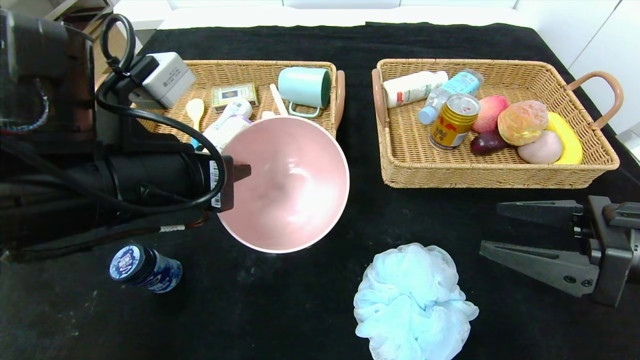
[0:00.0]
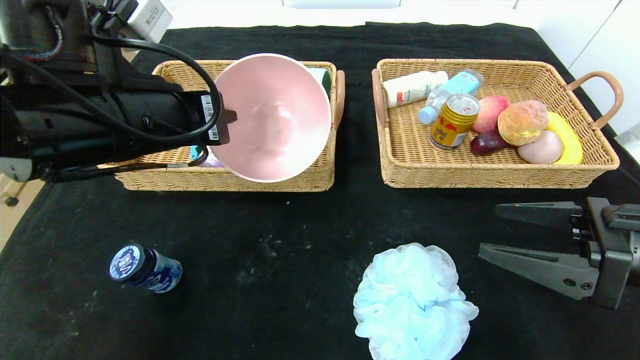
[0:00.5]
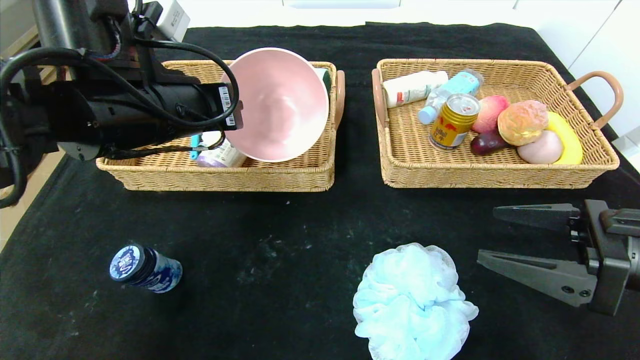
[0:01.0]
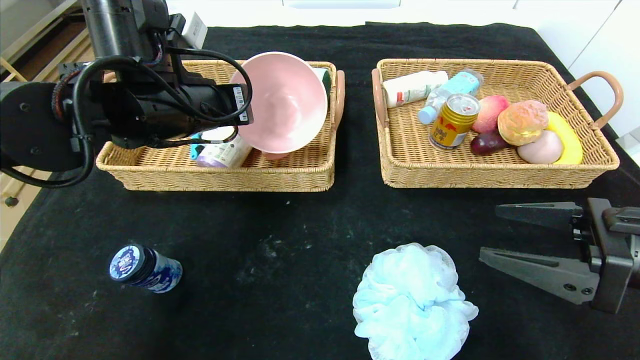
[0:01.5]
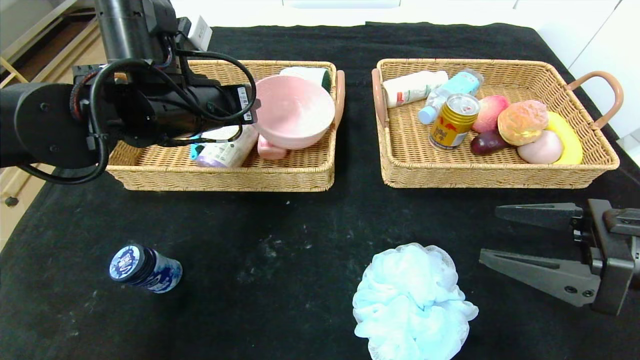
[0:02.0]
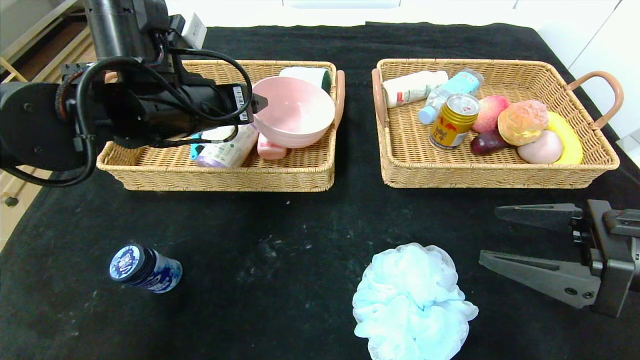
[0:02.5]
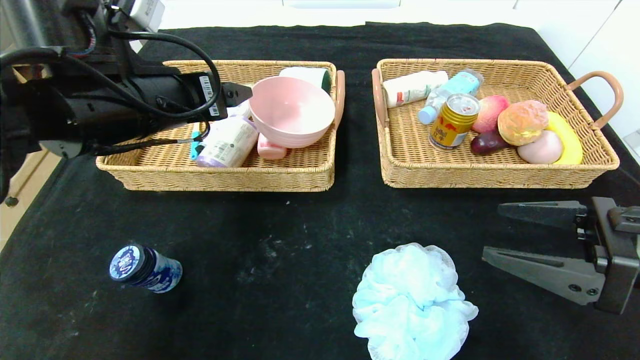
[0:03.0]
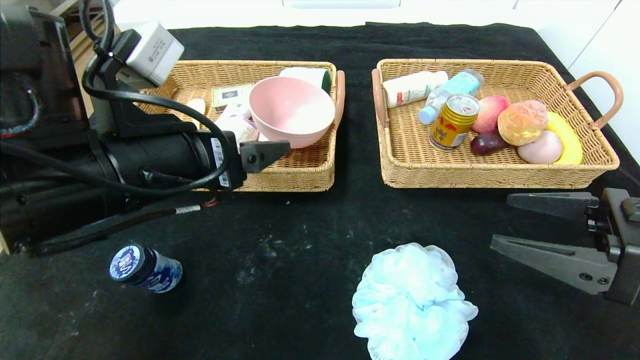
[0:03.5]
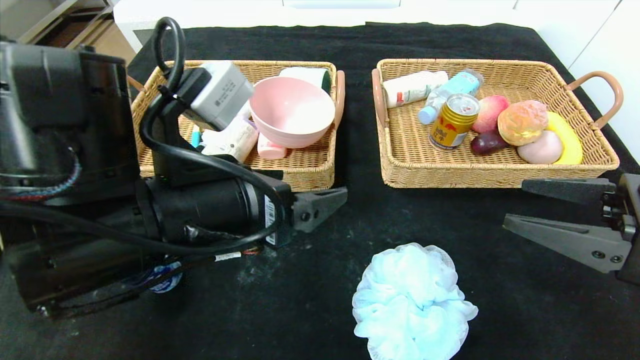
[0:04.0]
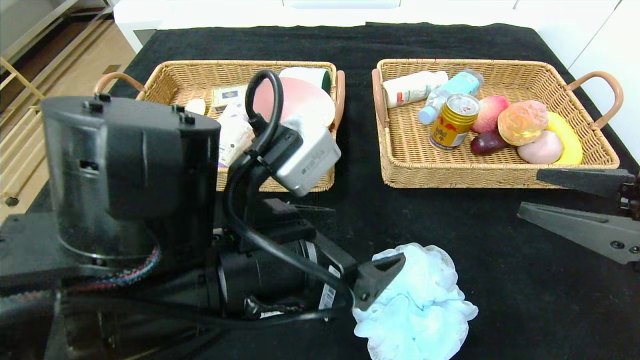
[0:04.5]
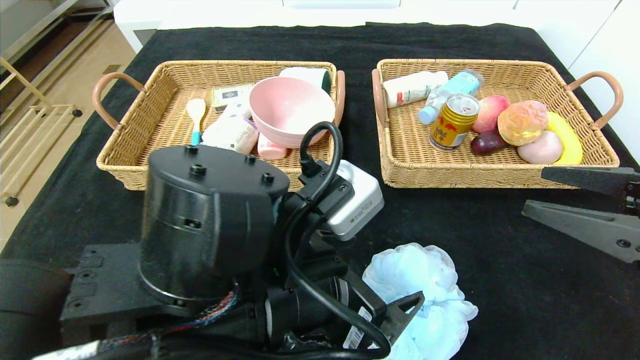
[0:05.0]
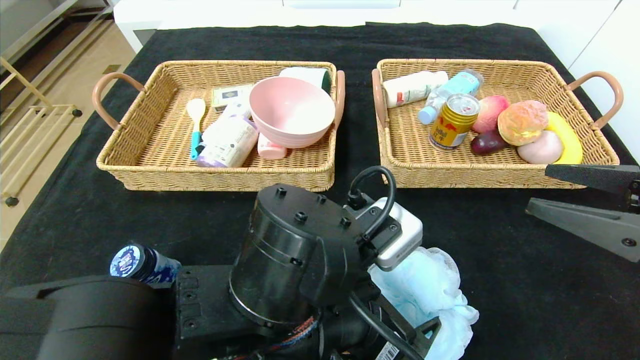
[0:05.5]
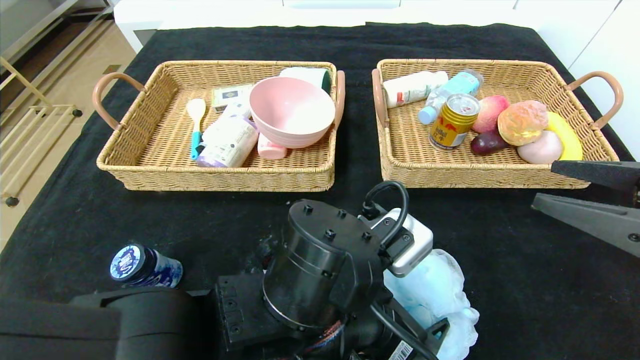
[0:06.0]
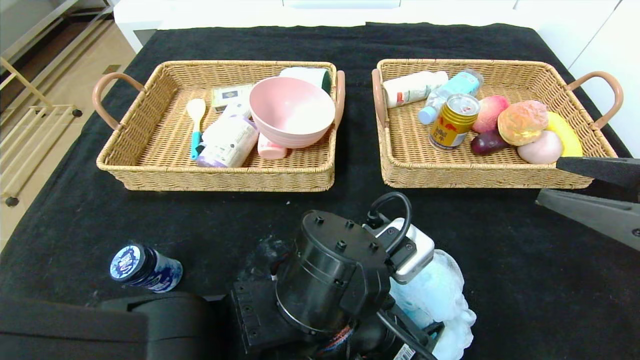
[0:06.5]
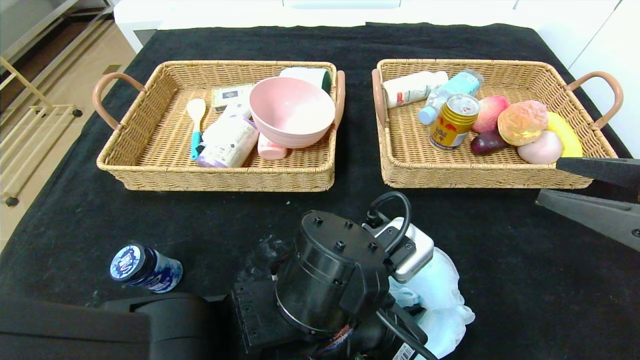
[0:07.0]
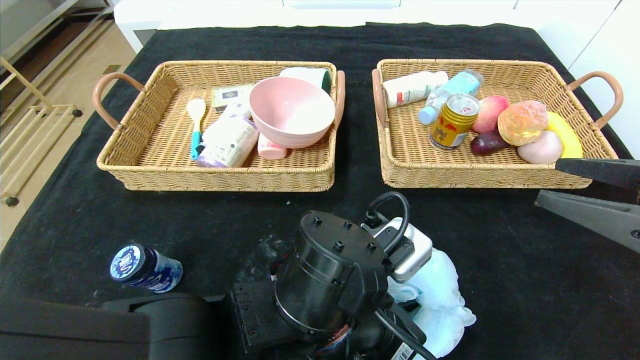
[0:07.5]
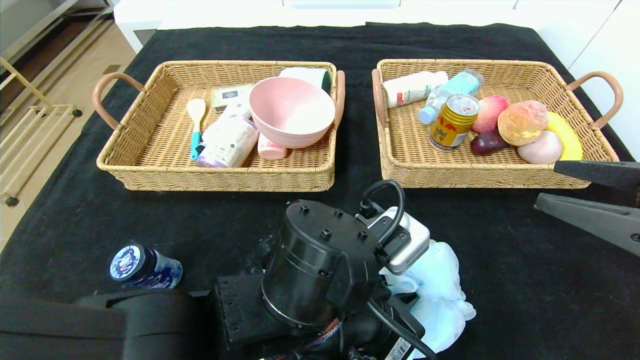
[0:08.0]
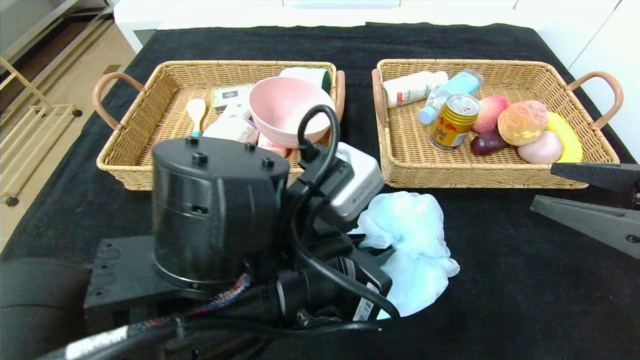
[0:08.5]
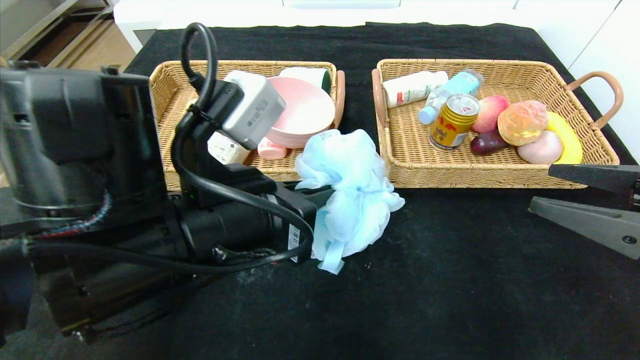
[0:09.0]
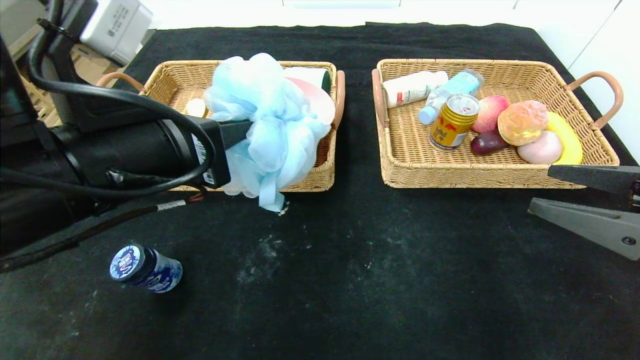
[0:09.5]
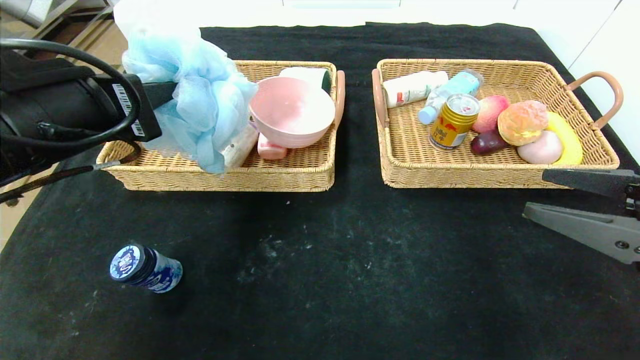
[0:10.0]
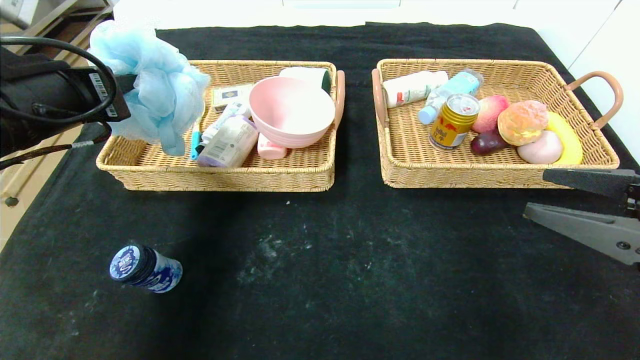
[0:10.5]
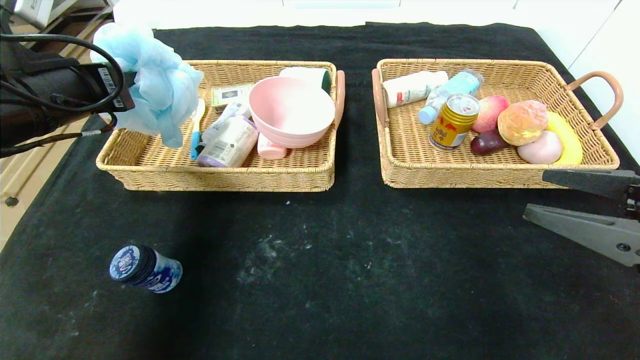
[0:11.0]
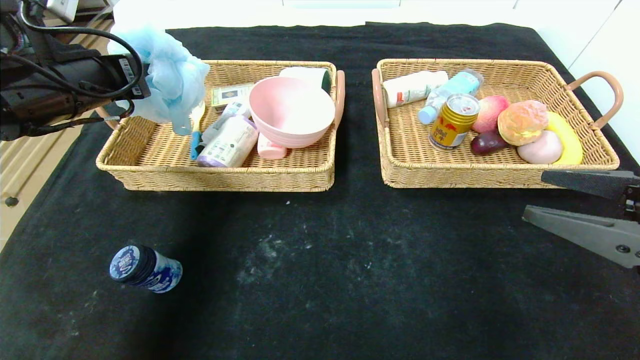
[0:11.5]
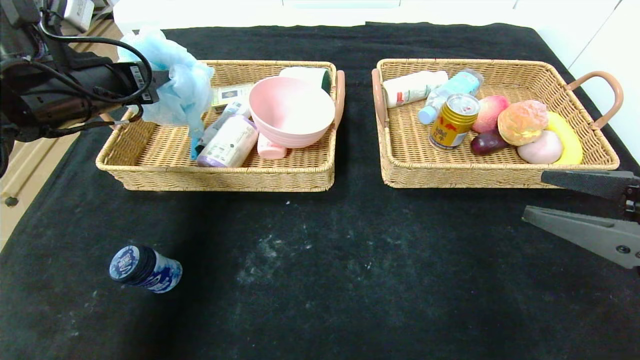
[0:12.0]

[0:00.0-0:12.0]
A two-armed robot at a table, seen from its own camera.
Step, 0:00.0 to 0:02.0: Grasp the pink bowl and put it in the left basket.
0:00.0 to 0:02.0: The left gripper travels forward by approximately 15 cm, and opens.
0:02.0 to 0:04.0: The left gripper goes about 15 cm backward, and opens its fingers.
0:04.0 to 0:06.0: The left gripper travels to the right and downward by about 15 cm.
0:06.0 to 0:08.0: The left gripper closes up.
0:08.0 to 0:10.0: The left gripper travels to the left and upward by about 25 cm.
0:10.0 to 0:12.0: The left gripper shifts about 15 cm forward and to the left, and opens up.

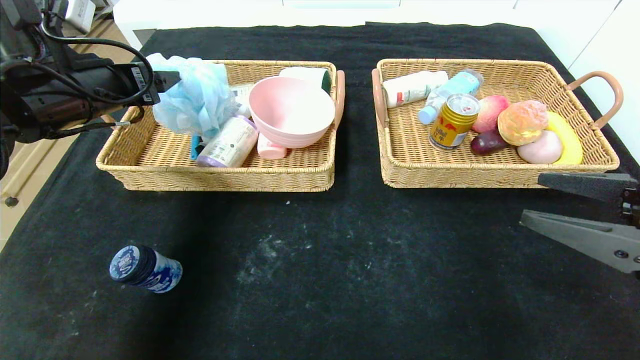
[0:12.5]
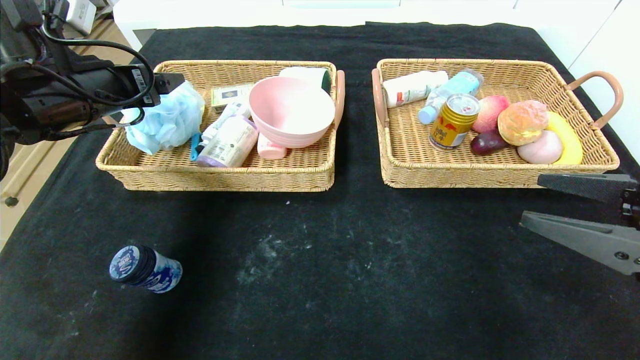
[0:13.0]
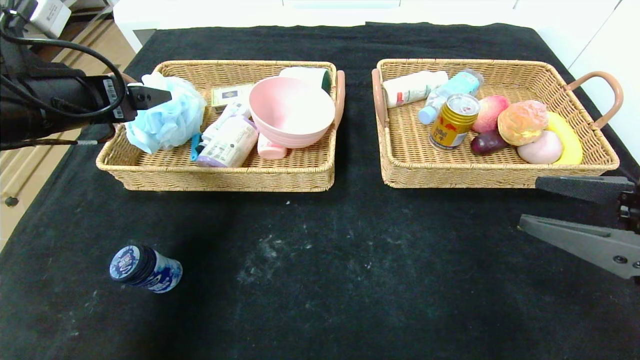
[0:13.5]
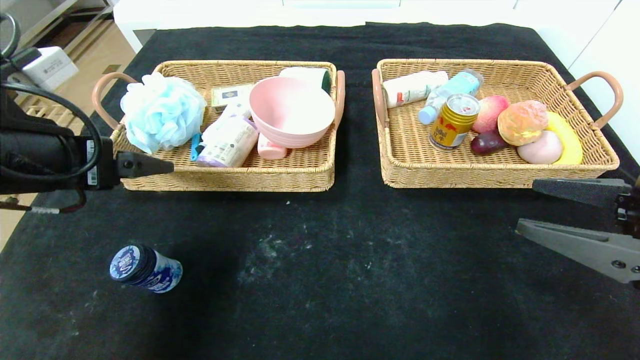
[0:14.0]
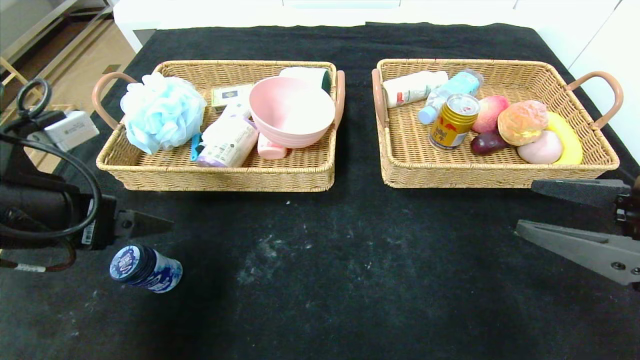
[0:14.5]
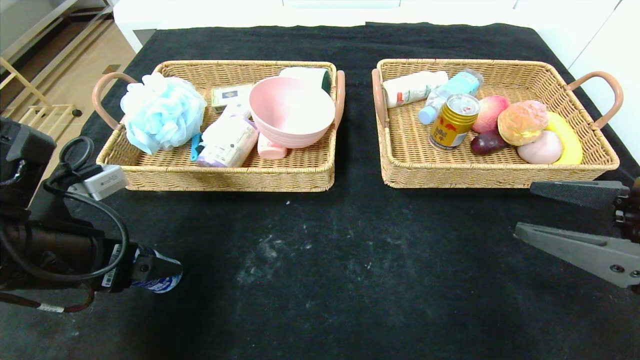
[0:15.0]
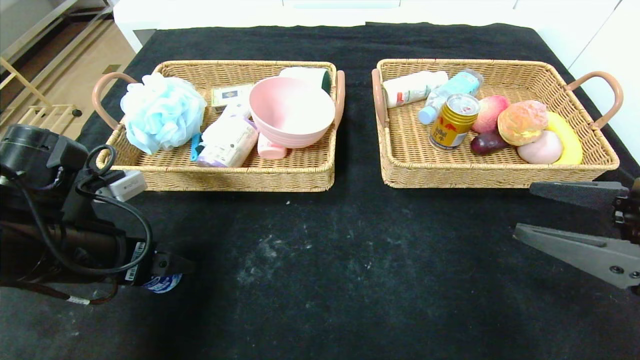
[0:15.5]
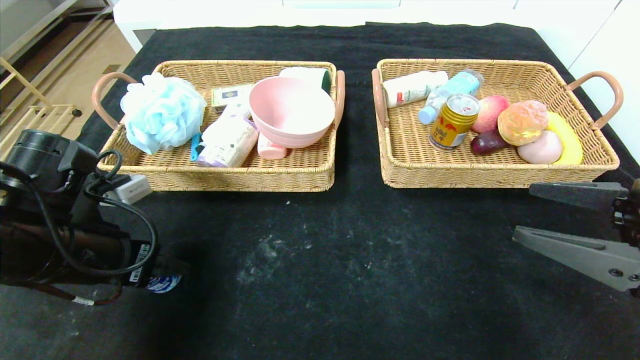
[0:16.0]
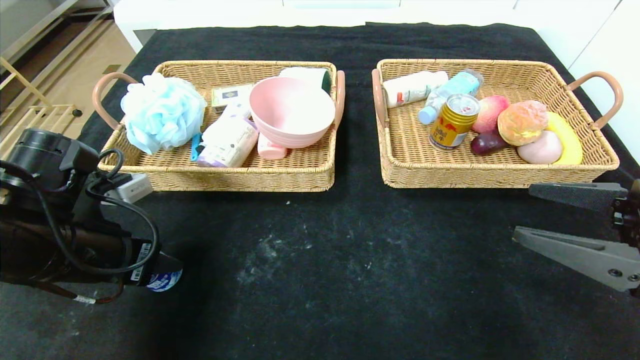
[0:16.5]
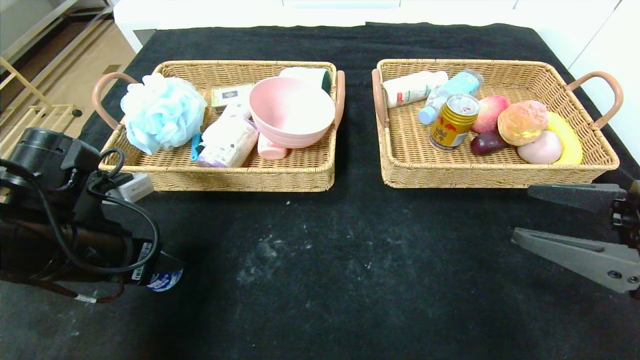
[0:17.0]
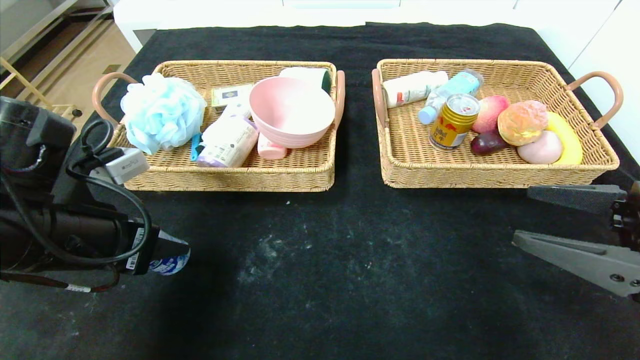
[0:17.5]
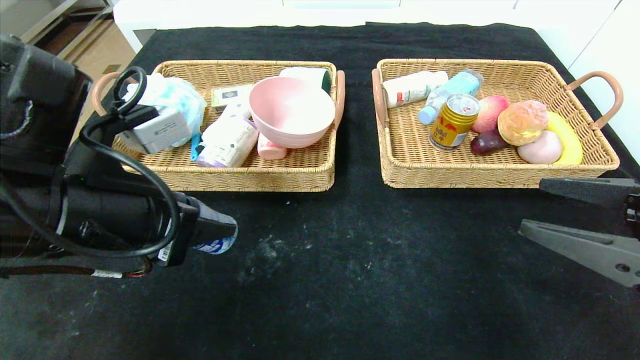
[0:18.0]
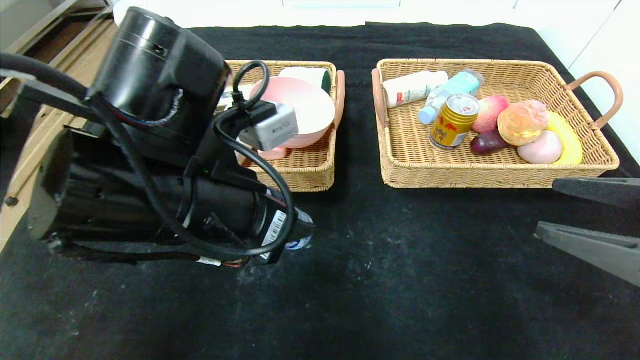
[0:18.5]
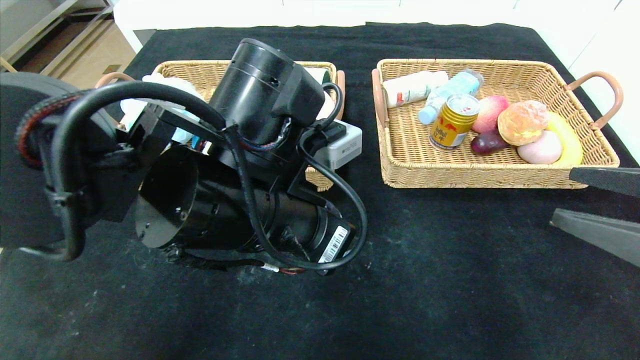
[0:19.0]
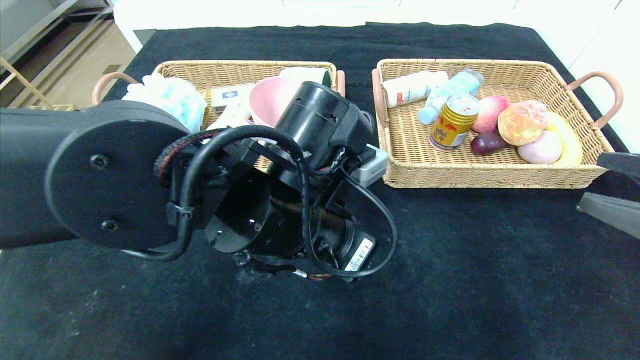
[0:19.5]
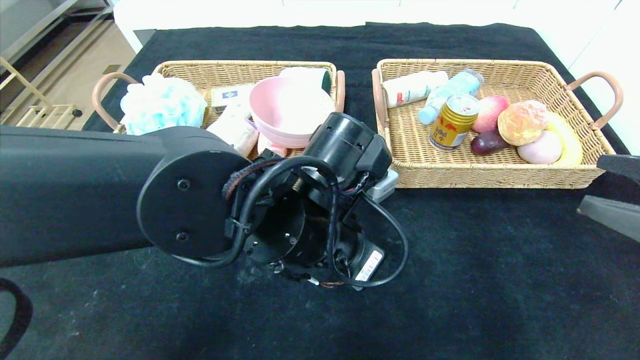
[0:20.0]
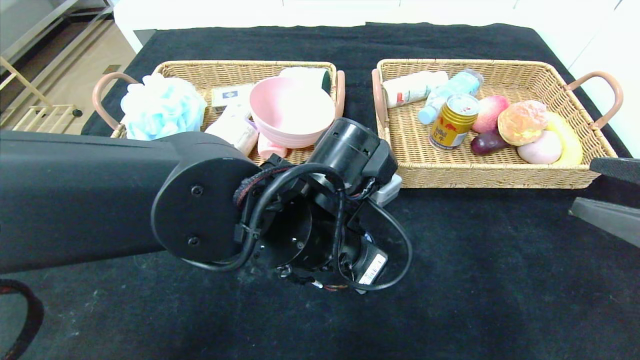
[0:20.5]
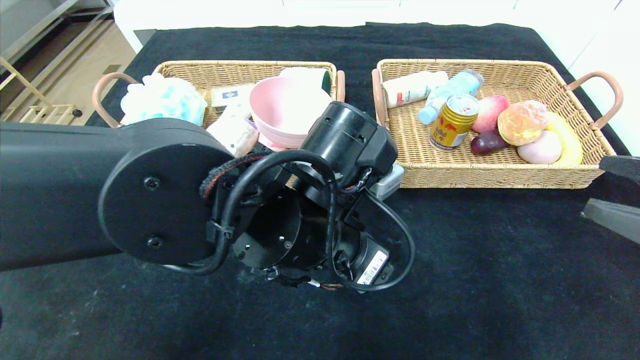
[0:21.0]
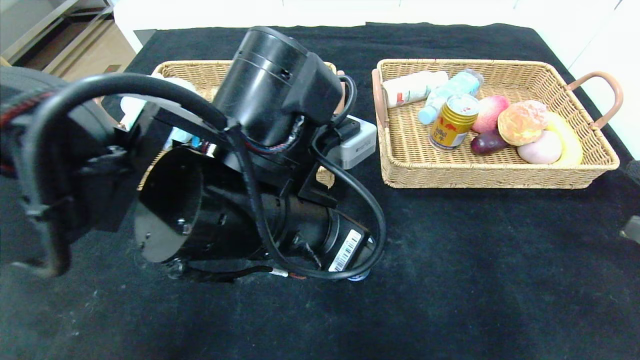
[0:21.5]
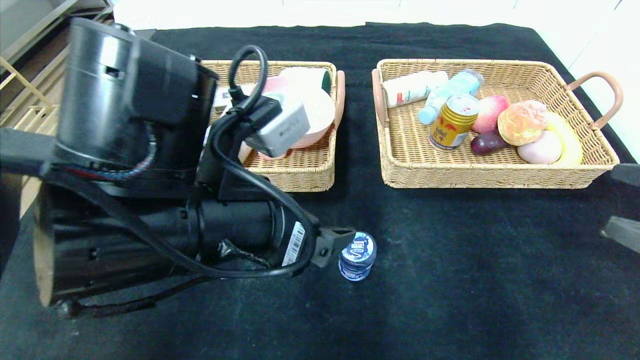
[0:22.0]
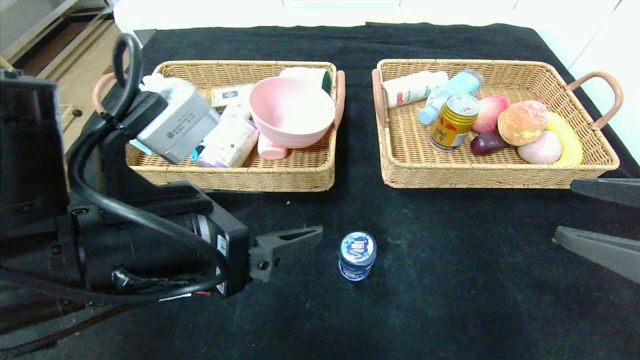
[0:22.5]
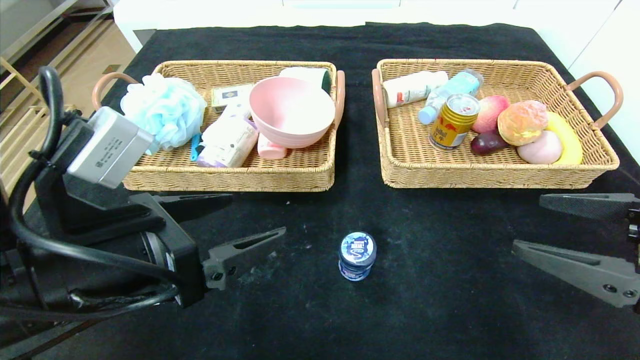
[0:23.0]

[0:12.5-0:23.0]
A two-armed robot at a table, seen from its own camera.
Step, 0:13.0 to 0:21.0: Place the round chewing gum in the center of the table.
0:12.5 to 0:14.5: The left gripper moves backward, about 15 cm.
0:14.5 to 0:16.5: The left gripper travels downward by about 5 cm, and closes up.
0:16.5 to 0:19.0: The left gripper travels to the right by about 20 cm.
0:19.0 to 0:21.0: The left gripper moves roughly 5 cm, and opens.
0:21.0 to 0:23.0: The left gripper is displaced to the left by some 15 cm.
